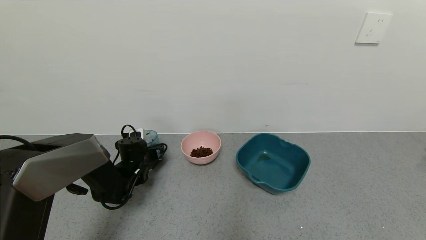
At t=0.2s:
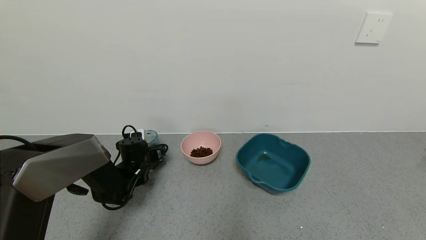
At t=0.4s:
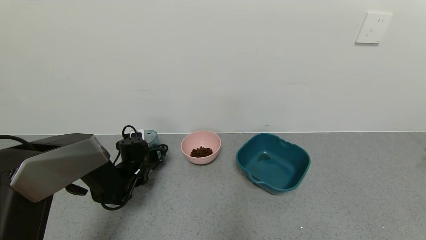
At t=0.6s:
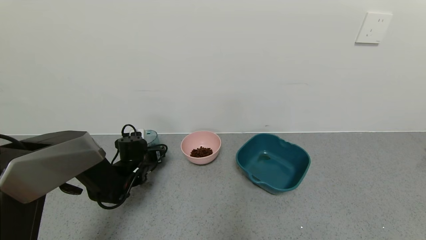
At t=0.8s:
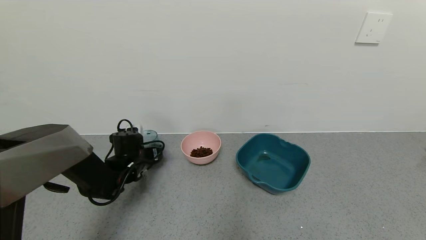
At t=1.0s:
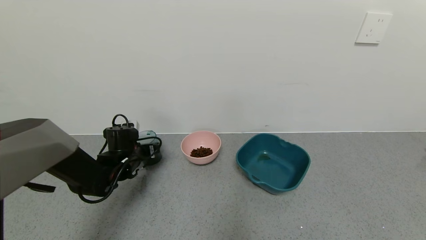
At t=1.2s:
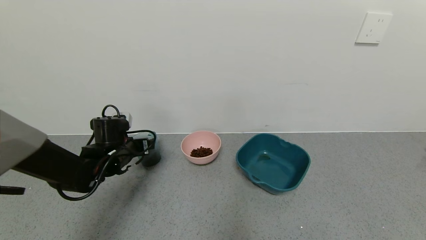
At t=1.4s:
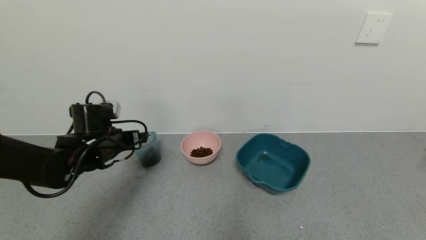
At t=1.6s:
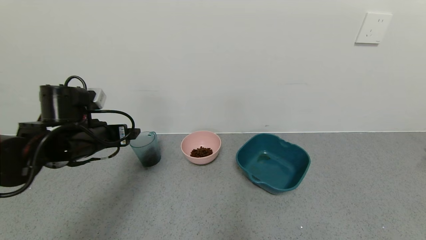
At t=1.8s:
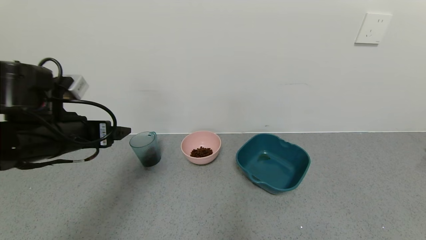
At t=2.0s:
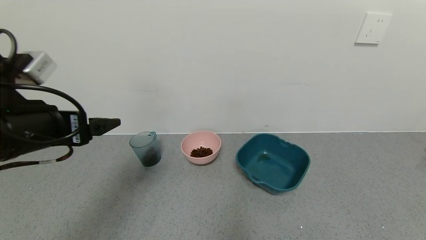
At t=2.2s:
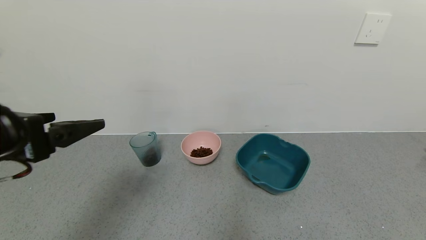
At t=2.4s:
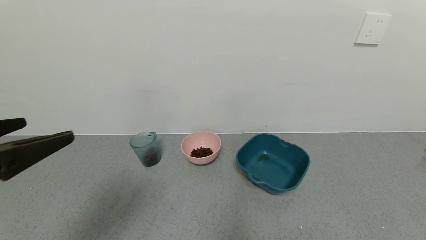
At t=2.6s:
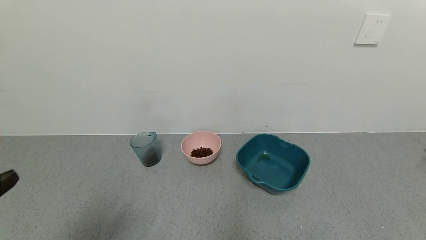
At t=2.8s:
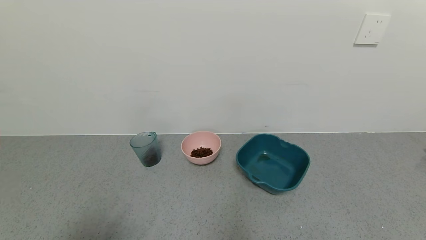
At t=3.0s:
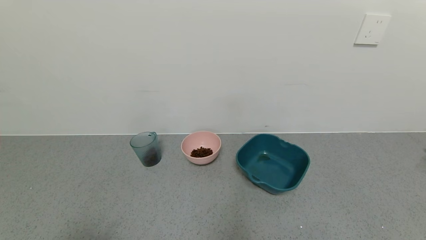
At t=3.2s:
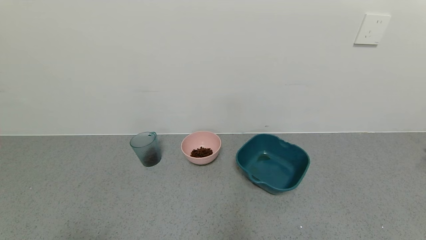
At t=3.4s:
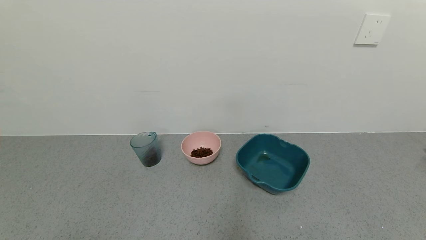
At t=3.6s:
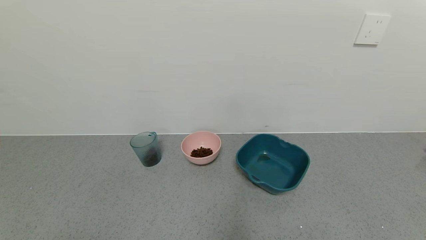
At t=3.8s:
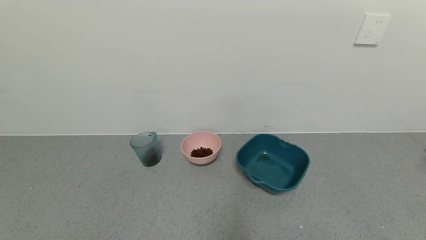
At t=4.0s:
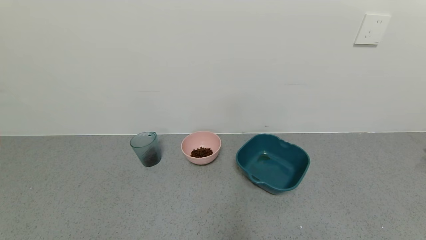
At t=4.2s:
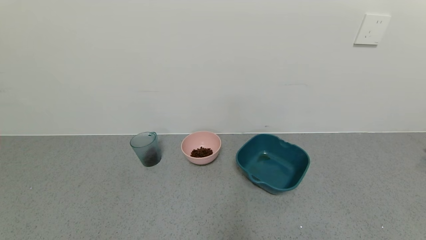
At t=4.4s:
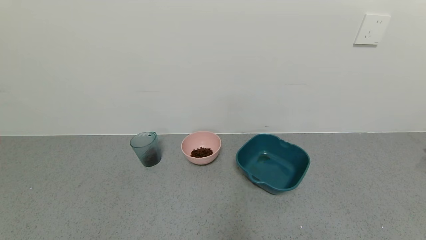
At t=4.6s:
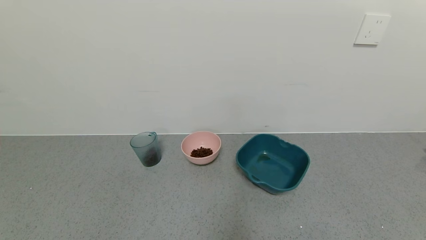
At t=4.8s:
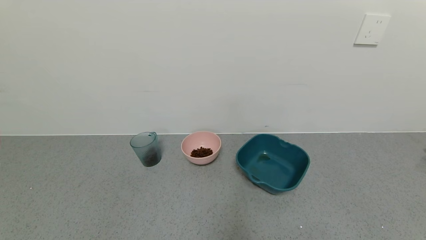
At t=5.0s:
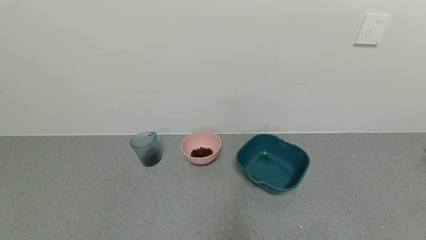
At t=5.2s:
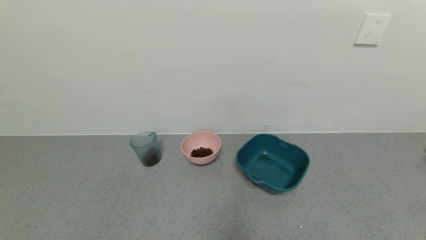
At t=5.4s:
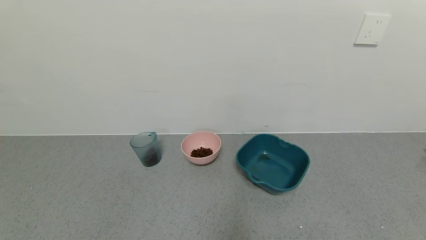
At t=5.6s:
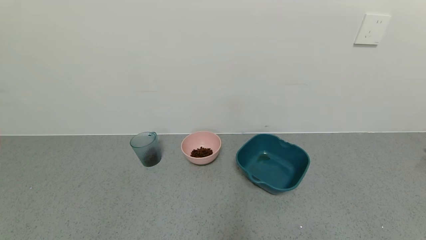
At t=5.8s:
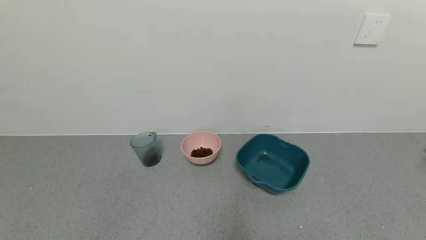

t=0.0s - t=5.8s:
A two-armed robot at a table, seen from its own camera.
Task of the whole recording: use a gripper to pick up the cup and pour the solid into a bowl or tray.
t=0.0s - t=1.4s: The left gripper shifts some 15 cm upward and backward, and opens.
t=1.4s - t=2.8s: The left gripper is displaced backward by some 30 cm.
t=2.8s - t=4.4s: The left gripper travels downward and backward by about 15 cm.

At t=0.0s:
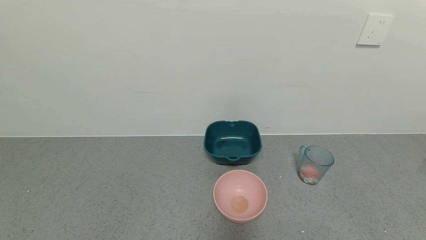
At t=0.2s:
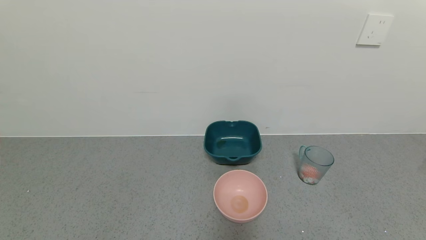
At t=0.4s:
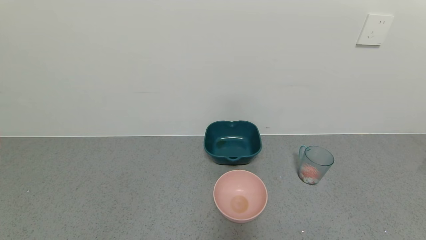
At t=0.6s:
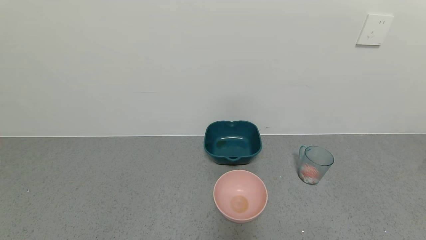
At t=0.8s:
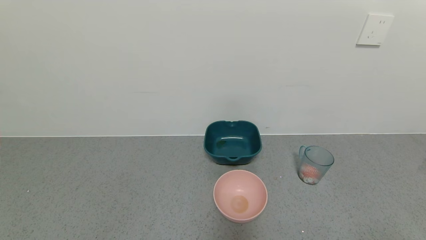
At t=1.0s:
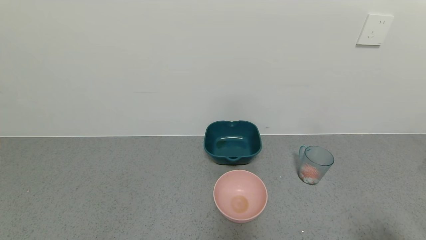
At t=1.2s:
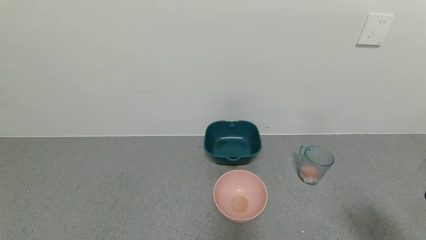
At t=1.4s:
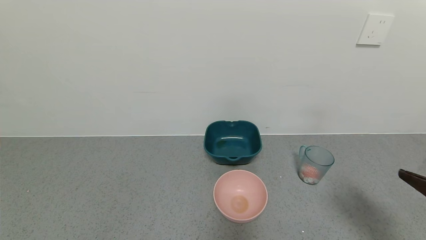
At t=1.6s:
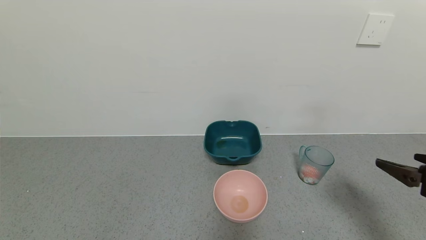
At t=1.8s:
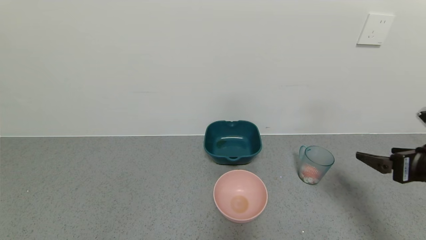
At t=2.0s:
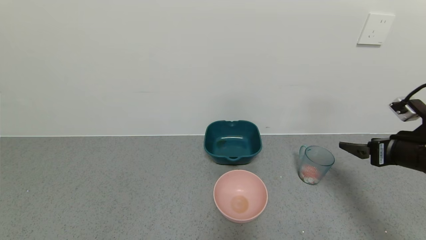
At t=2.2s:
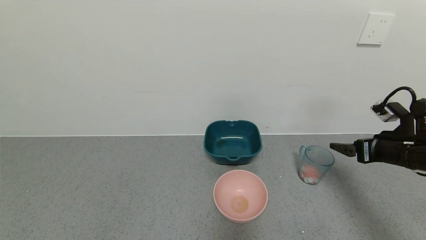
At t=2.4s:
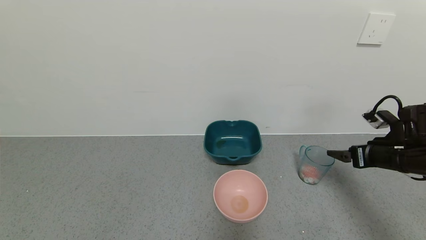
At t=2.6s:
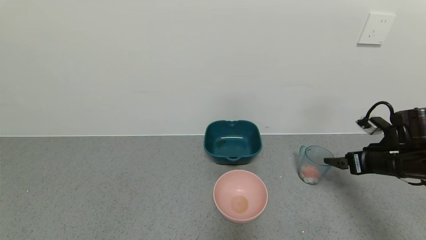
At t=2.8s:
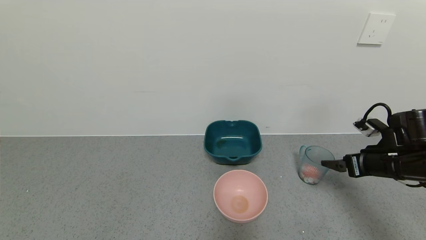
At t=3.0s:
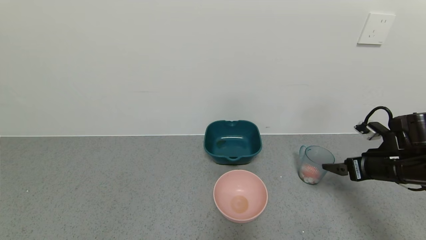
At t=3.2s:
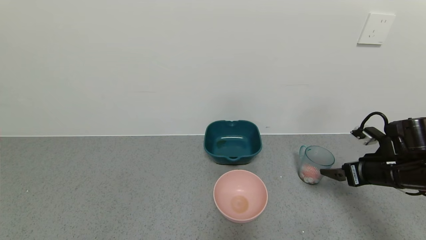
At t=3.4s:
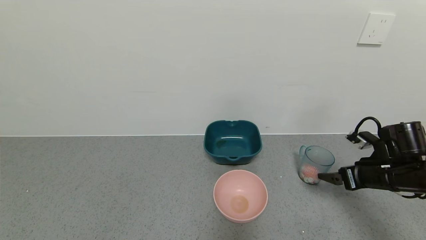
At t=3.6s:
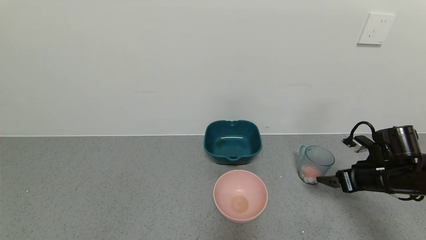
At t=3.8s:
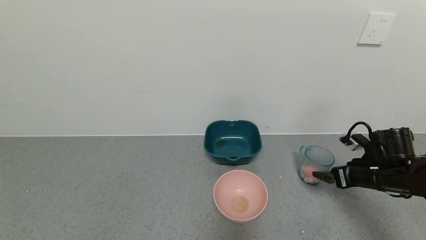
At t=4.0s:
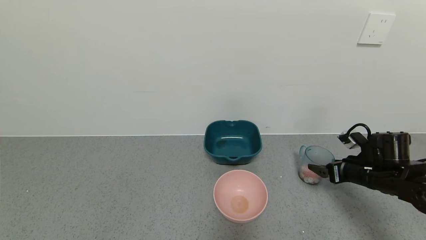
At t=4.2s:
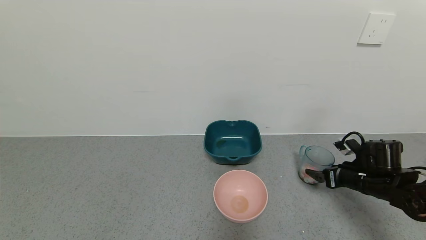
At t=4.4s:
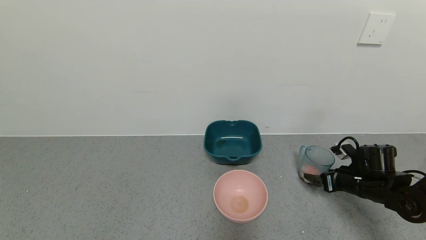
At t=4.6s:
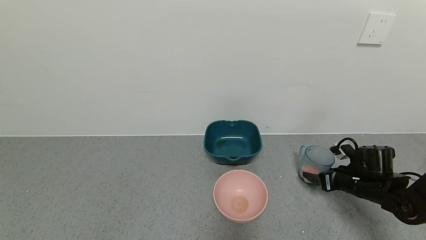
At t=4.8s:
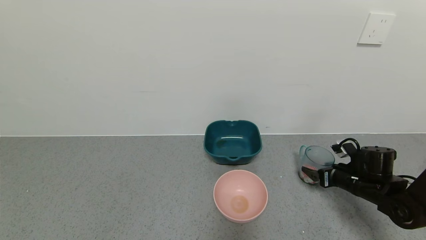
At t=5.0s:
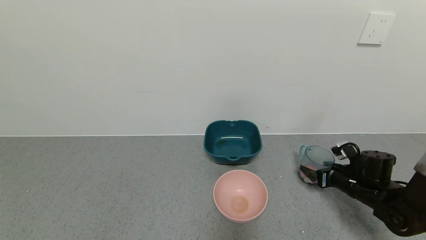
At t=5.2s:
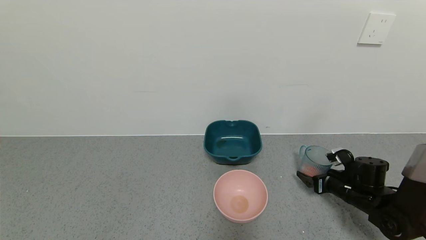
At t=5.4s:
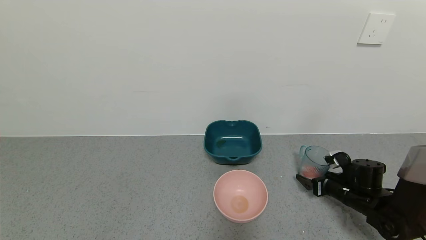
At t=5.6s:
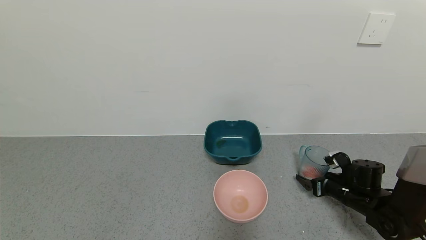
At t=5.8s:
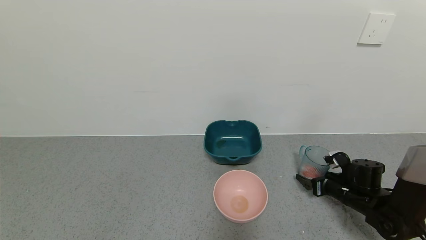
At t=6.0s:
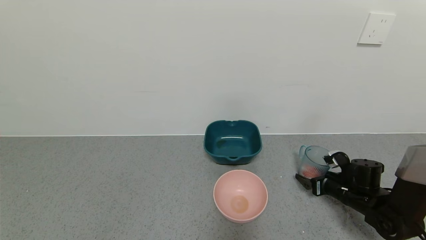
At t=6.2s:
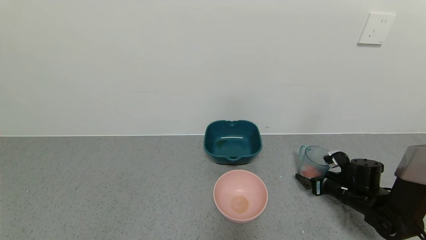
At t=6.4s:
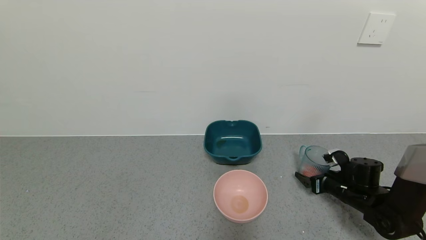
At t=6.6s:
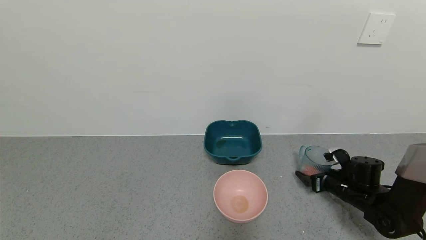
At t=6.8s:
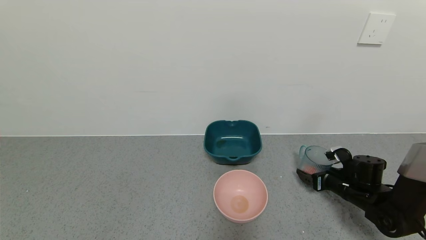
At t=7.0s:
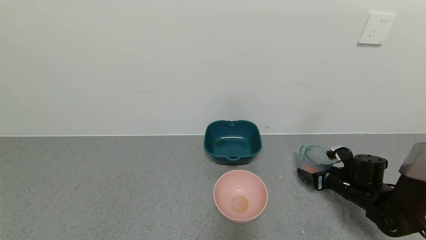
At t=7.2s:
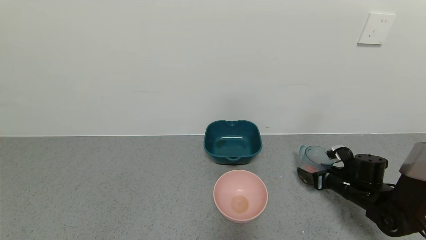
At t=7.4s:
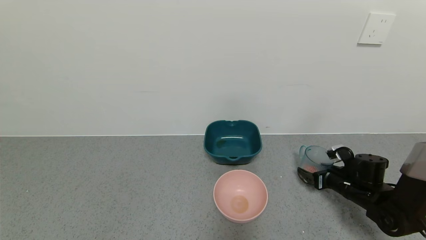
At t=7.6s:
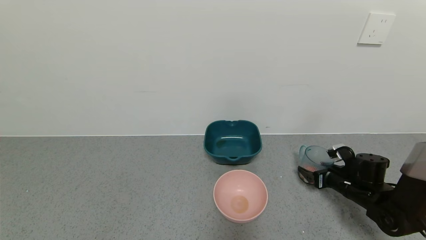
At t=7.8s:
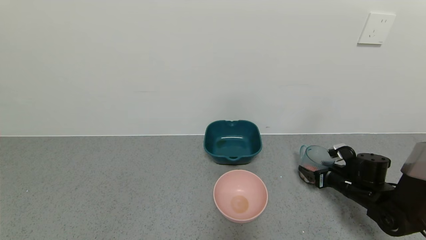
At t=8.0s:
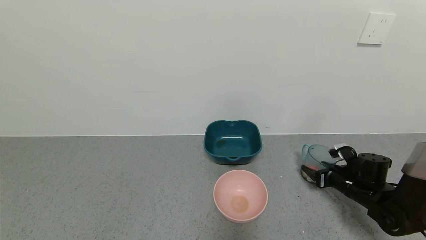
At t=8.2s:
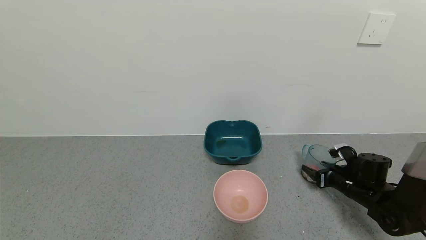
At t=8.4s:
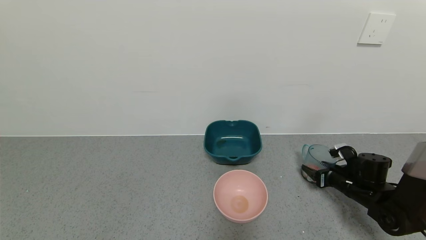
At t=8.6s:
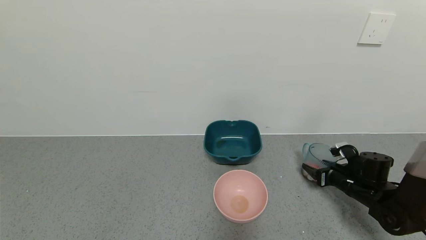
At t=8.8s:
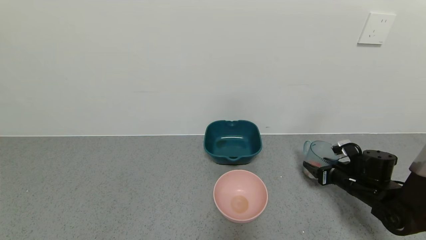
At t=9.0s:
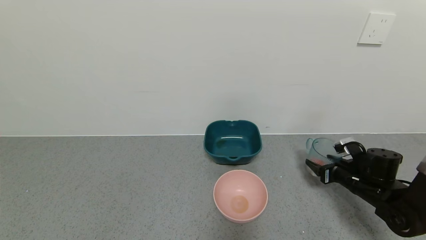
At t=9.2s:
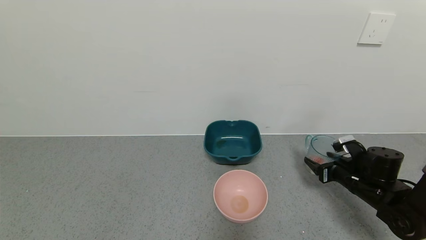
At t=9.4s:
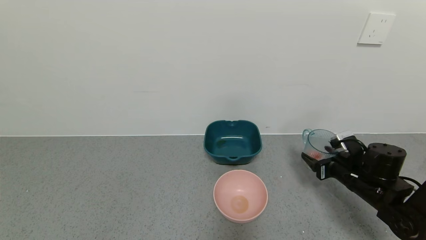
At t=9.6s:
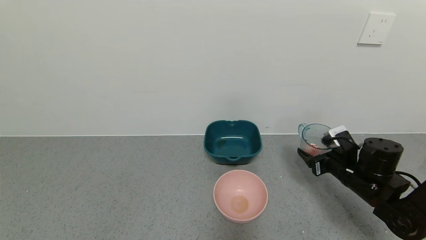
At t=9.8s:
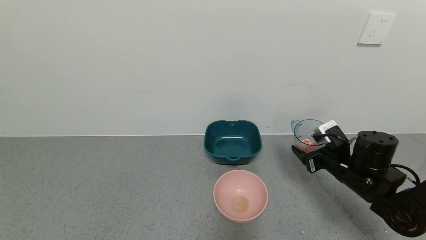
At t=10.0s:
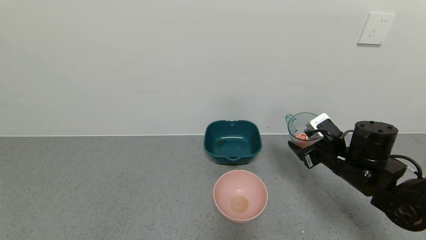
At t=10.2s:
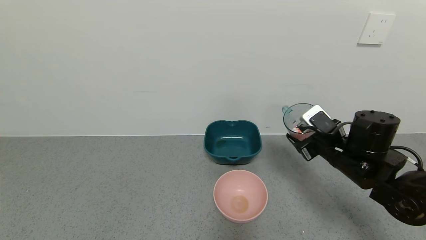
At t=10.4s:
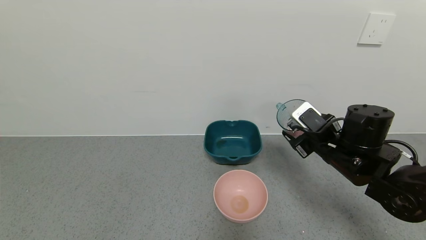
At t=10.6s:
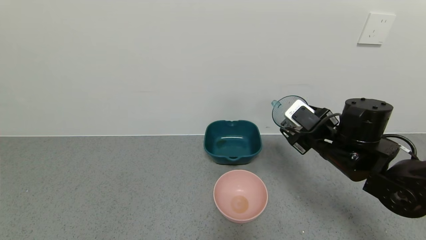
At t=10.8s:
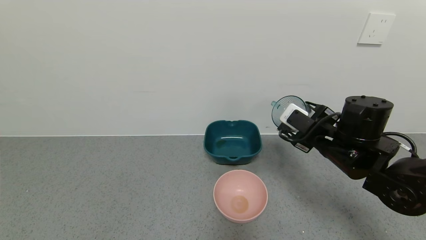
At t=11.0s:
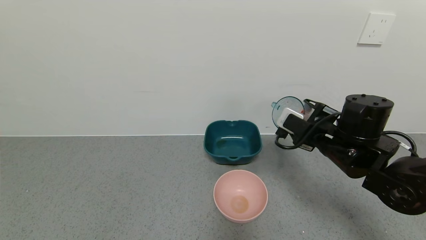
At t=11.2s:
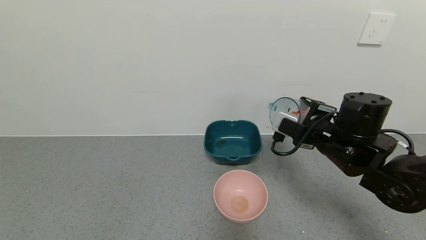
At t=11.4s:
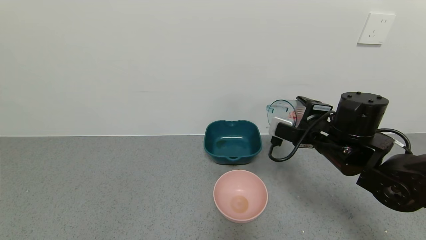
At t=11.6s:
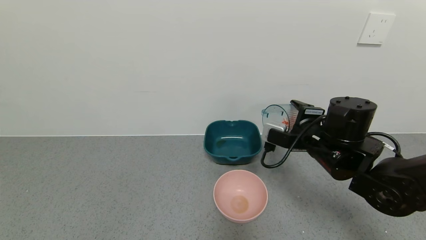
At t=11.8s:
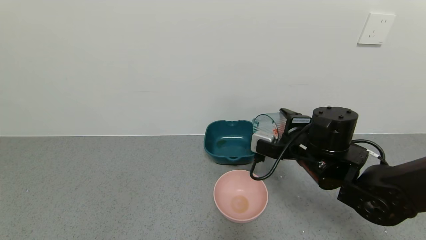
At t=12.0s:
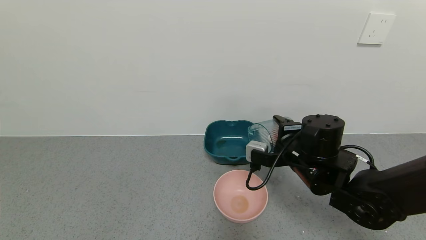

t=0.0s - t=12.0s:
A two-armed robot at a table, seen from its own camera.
Task of the whole recording: use a gripper to pick up the cup and pour the solid into a bowl or tray.
Step, t=0.0s - t=8.2s: Grasp the glass of shrimp with the right gripper.
t=0.0s - t=1.6s: The right gripper is displaced forward and upward by about 25 cm.
t=1.6s - t=3.0s: The right gripper is displaced forward and downward by some 15 cm.
t=3.0s - t=4.4s: The right gripper travels downward by roughly 10 cm.
t=4.4s - t=6.0s: The right gripper ends up roughly 5 cm from where it was.
t=6.0s - t=7.6s: The grippers stay close to where they were, moving slightly.
t=7.6s - t=9.0s: The right gripper closes up.
t=9.0s - t=10.4s: The right gripper goes roughly 15 cm upward and to the left.
t=10.4s - t=12.0s: The right gripper travels to the left by roughly 5 cm.
